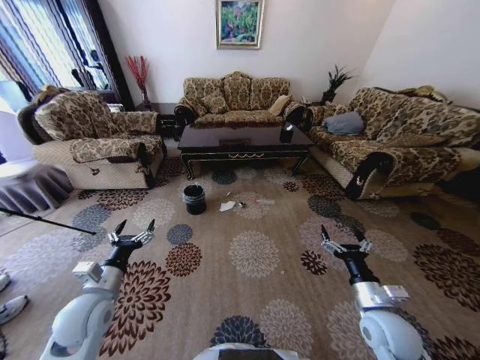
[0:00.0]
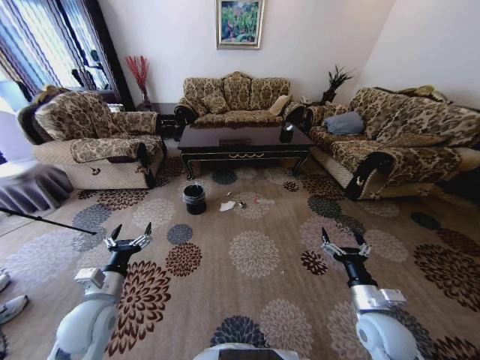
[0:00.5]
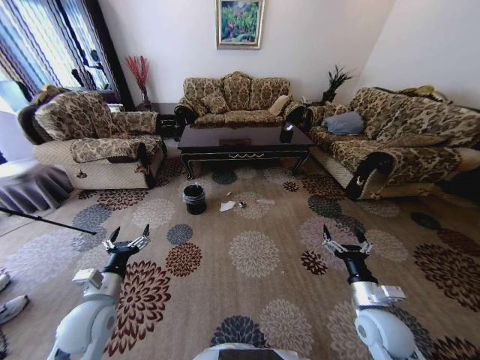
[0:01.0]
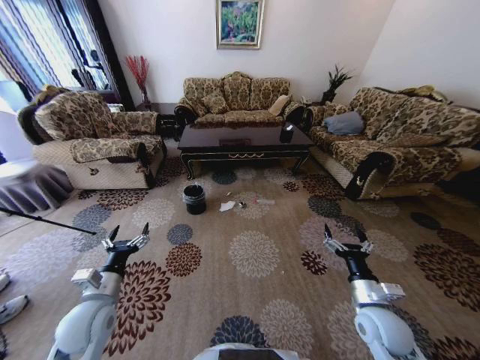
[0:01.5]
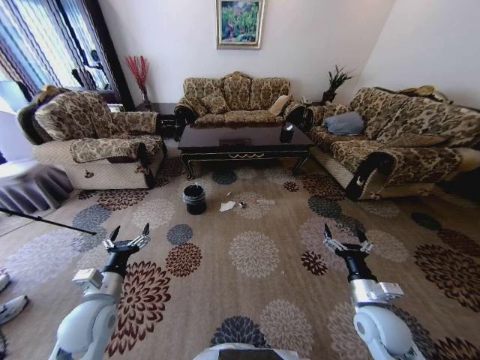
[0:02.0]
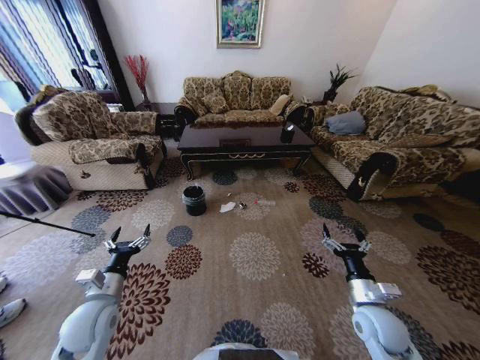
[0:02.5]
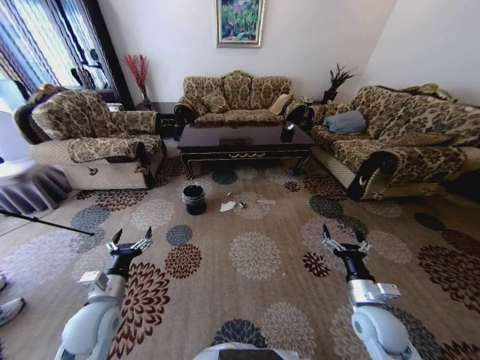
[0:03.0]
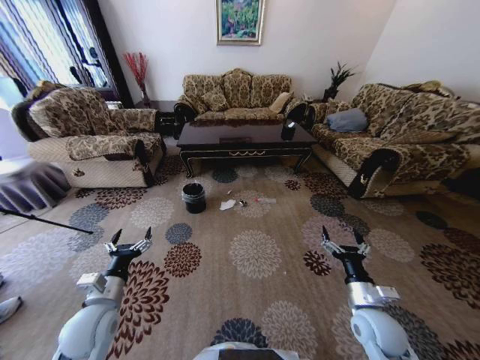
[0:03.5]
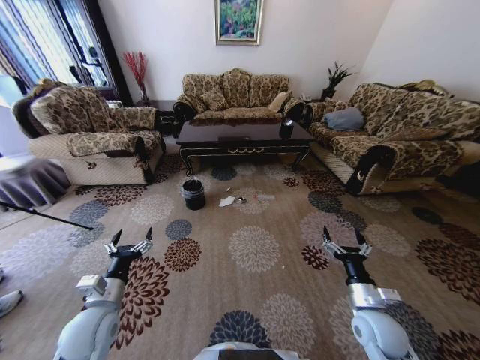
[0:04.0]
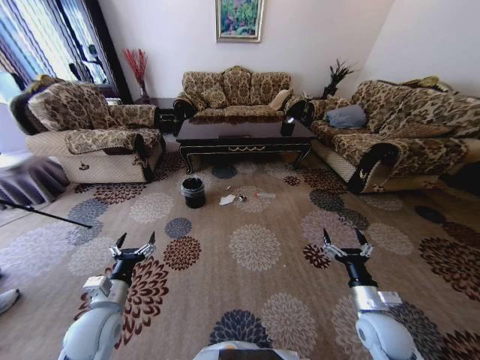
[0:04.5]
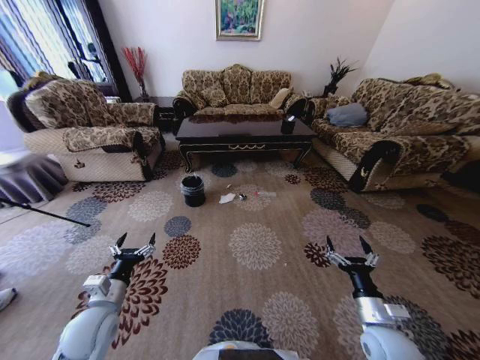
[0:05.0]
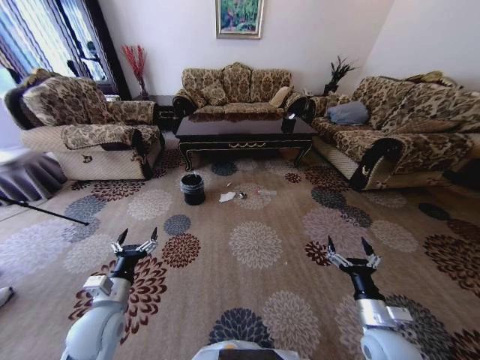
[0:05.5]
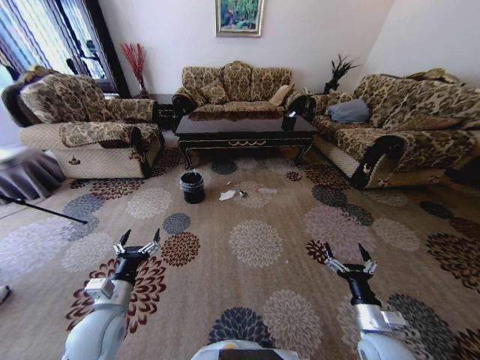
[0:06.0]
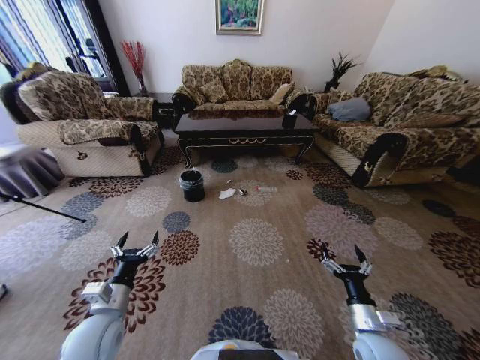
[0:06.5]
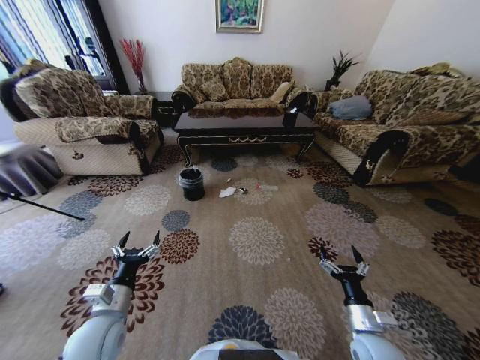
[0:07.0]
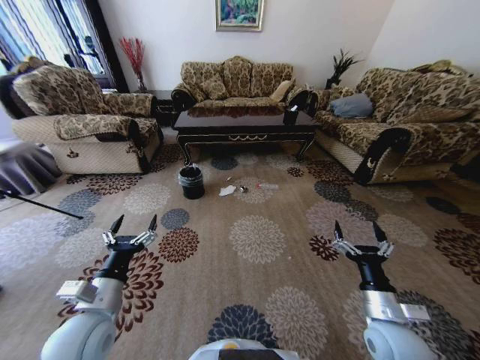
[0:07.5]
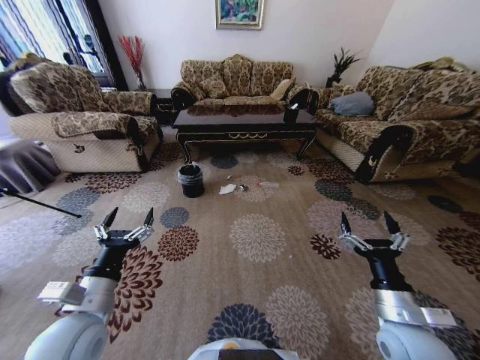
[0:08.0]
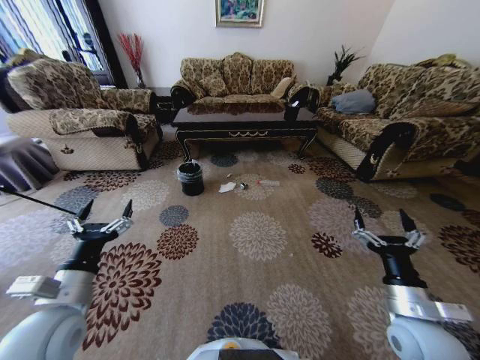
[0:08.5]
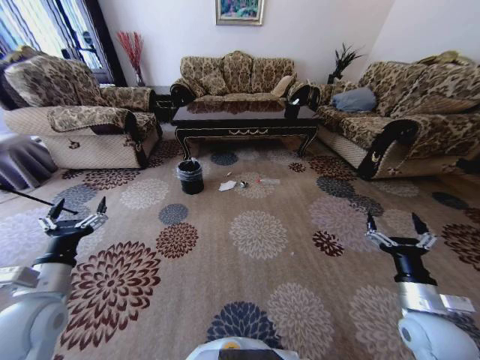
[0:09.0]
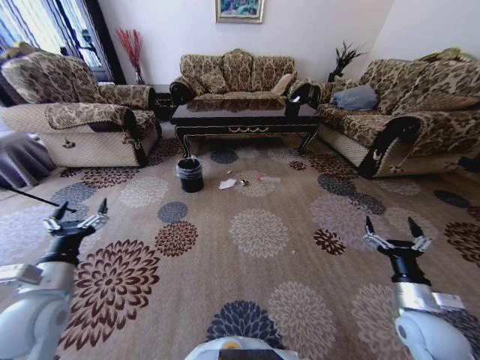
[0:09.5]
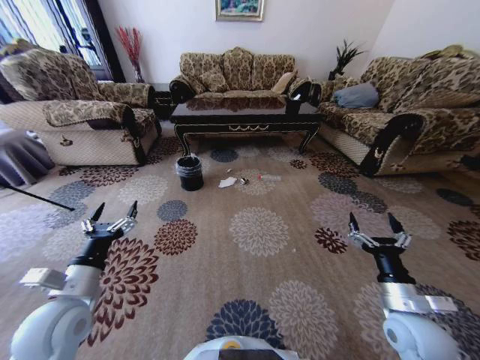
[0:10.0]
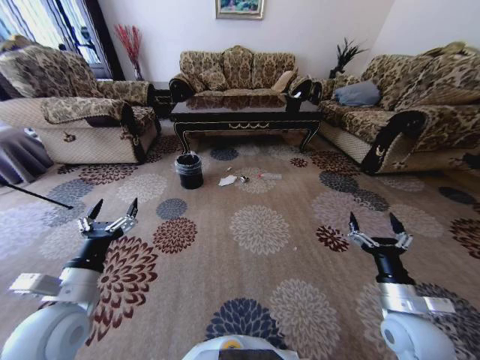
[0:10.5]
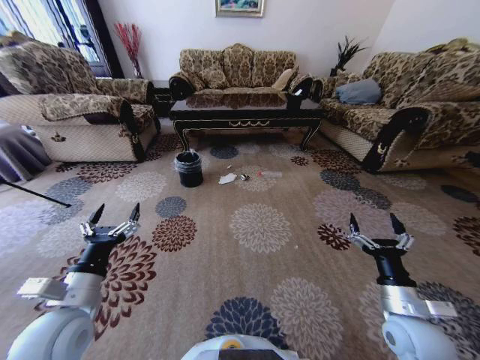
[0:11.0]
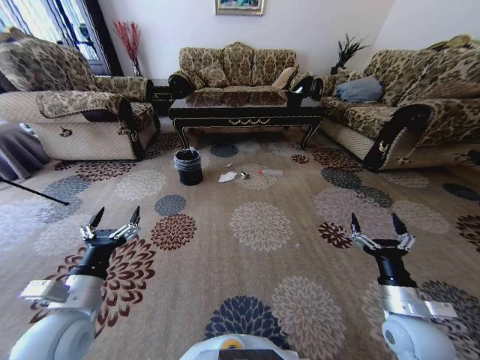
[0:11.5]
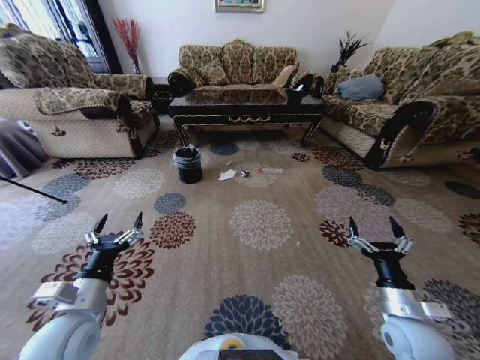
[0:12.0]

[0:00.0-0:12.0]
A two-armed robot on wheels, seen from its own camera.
Task of the whole recording: Move to the front of the table and pick up the trash from the floor, then place it into the trash bin.
0:04.0 to 0:06.0: The right gripper shifts by approximately 5 cm.
0:06.0 to 0:08.0: Both grippers travel together upward, about 10 cm.

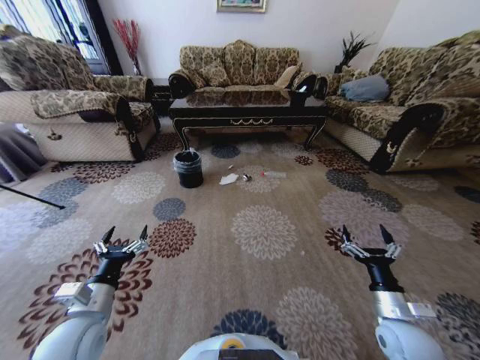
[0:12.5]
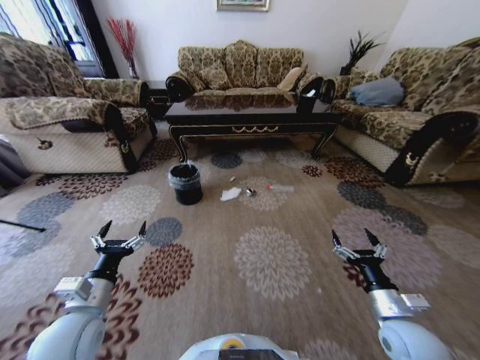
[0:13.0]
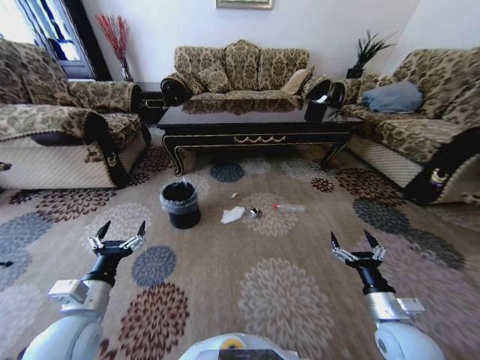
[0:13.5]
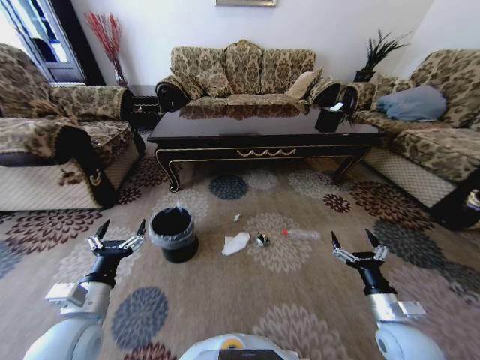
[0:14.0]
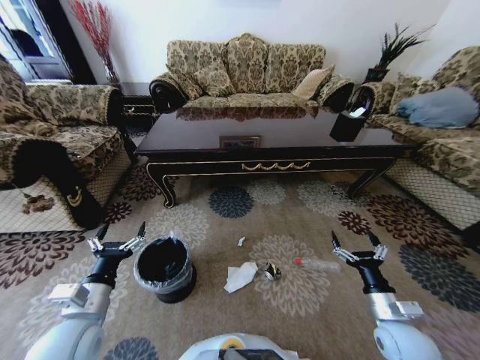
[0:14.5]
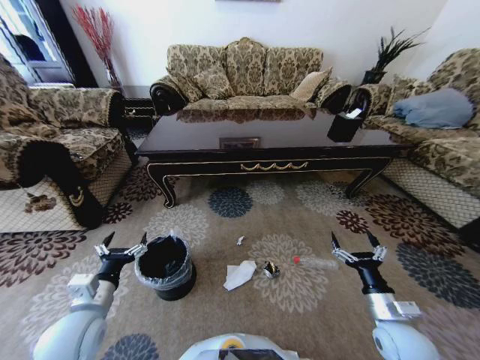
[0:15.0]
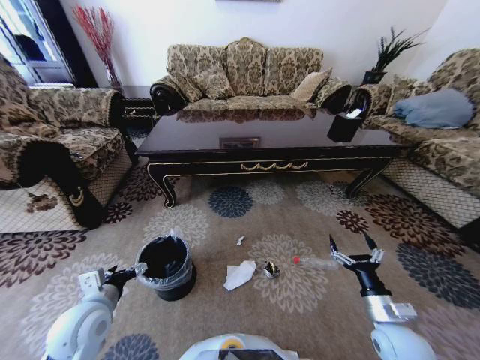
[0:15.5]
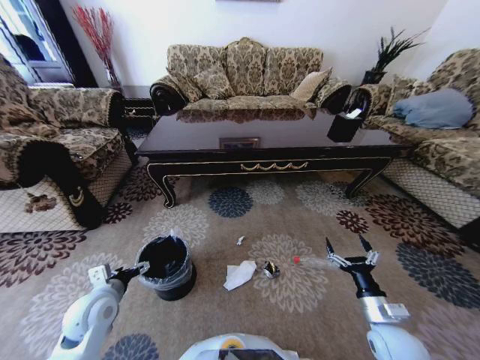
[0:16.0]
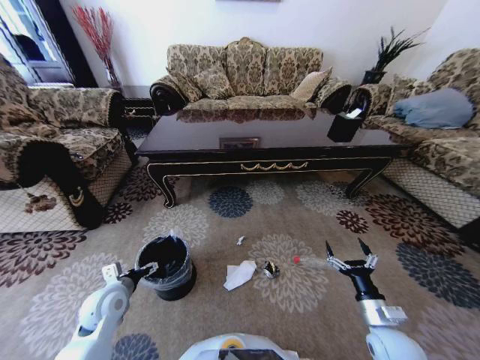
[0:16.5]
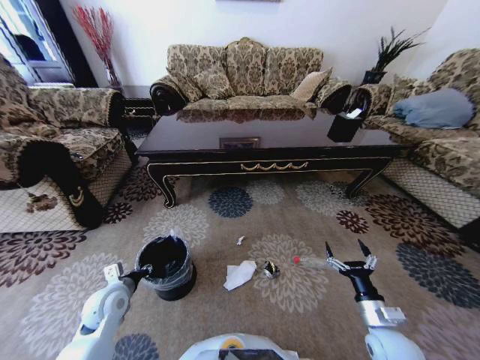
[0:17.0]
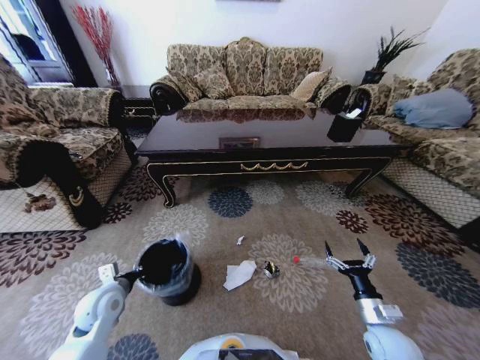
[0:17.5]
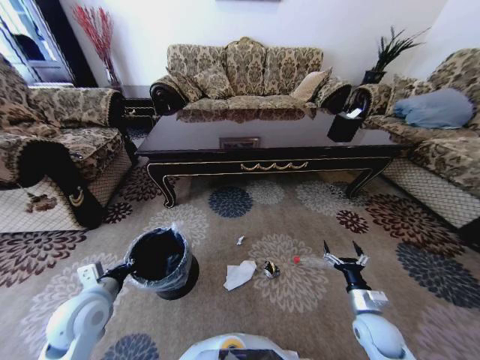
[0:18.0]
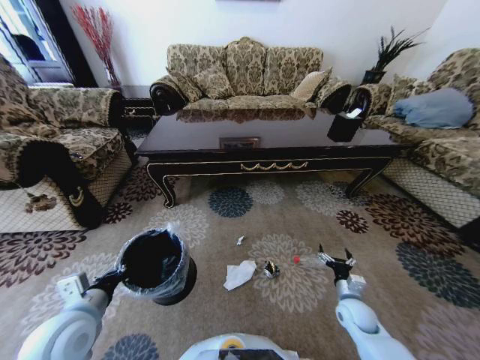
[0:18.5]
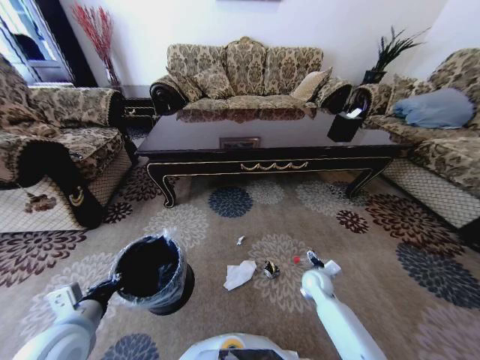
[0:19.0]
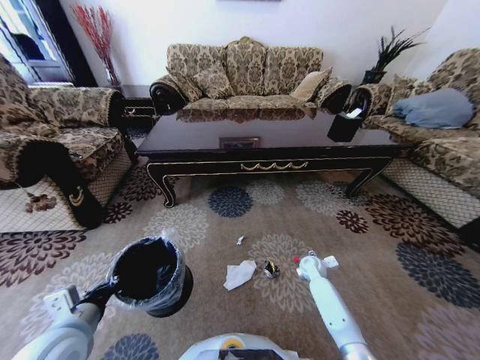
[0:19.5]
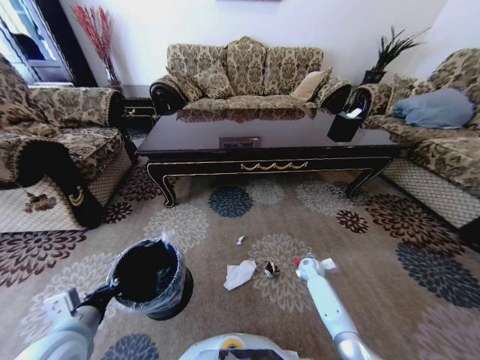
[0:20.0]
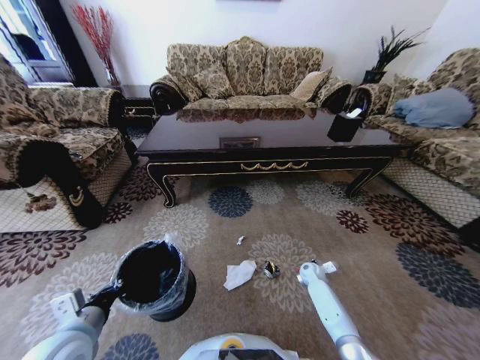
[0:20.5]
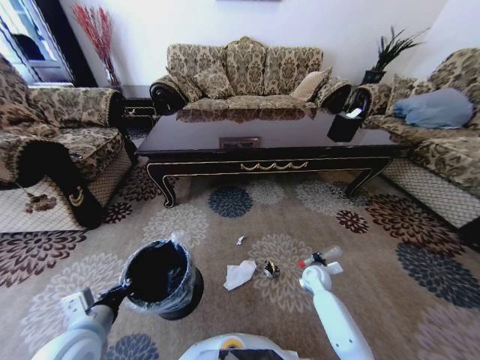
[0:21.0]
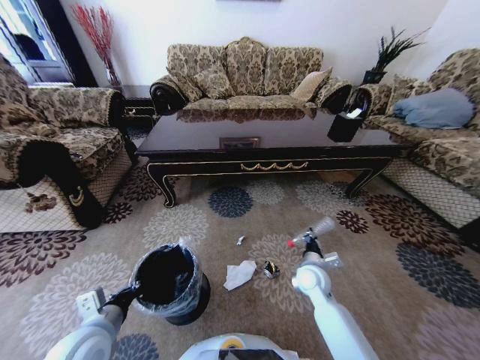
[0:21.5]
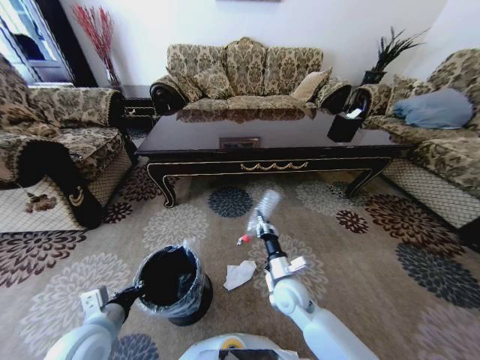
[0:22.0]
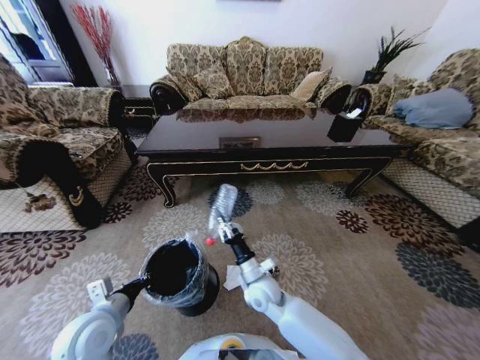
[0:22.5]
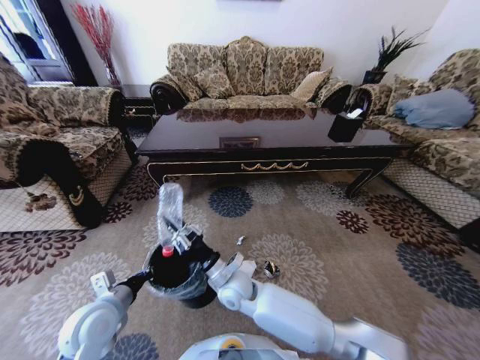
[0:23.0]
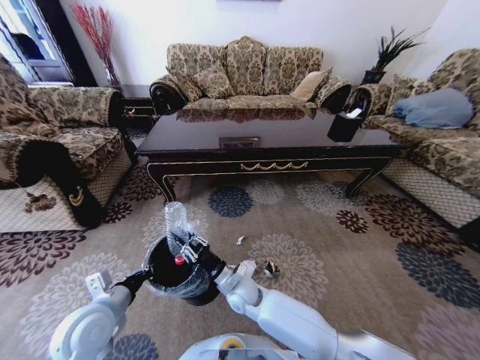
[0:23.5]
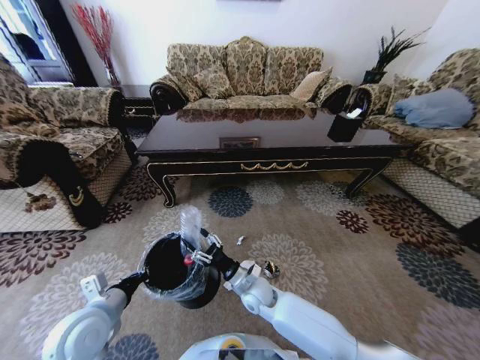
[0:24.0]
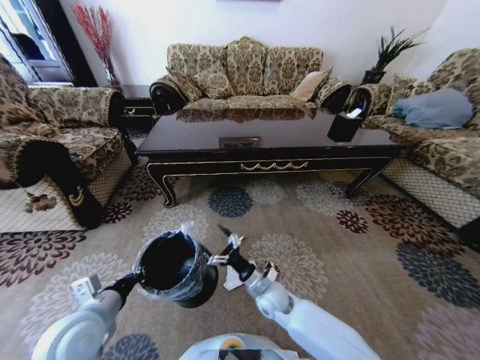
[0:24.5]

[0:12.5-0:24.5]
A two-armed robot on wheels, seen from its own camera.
Task of the whole recording: Move to the front of the table and pick up the trash from the floor, then place it into the trash bin.
0:14.5 to 0:16.5: The left gripper shifts about 15 cm downward and forward.
0:16.5 to 0:18.5: The right gripper moves forward and downward, approximately 10 cm, while the left gripper shifts approximately 15 cm upward and backward, and closes.
0:18.5 to 0:20.5: The right gripper travels forward and downward by approximately 15 cm, and closes its fingers.
0:20.5 to 0:22.5: The left gripper moves some 5 cm; the right gripper goes about 30 cm to the left, upward and backward, and closes.
0:22.5 to 0:24.5: The right gripper travels to the left and back again, roughly 10 cm each way, and opens its fingers.

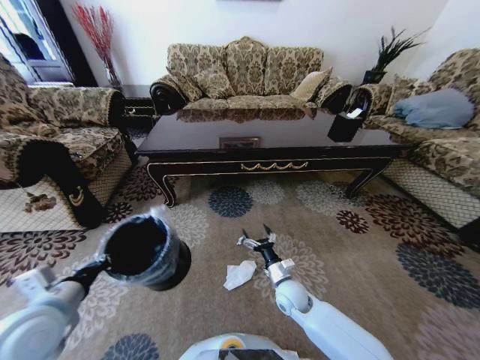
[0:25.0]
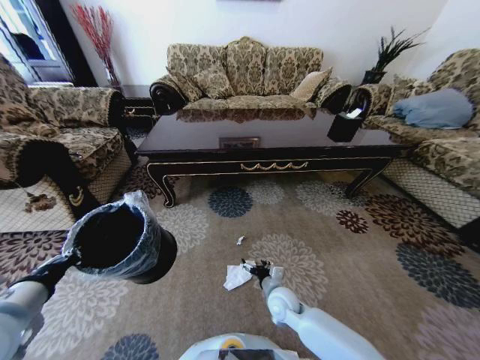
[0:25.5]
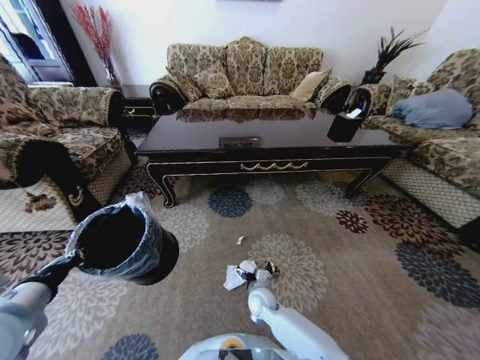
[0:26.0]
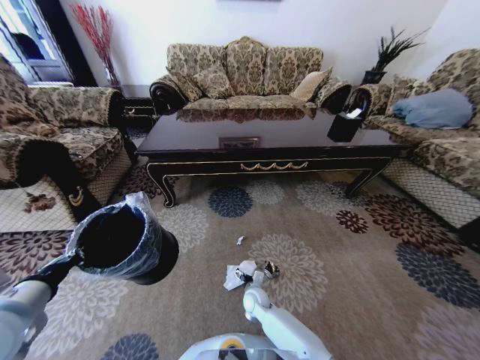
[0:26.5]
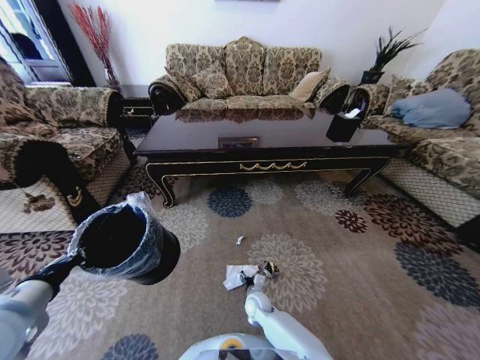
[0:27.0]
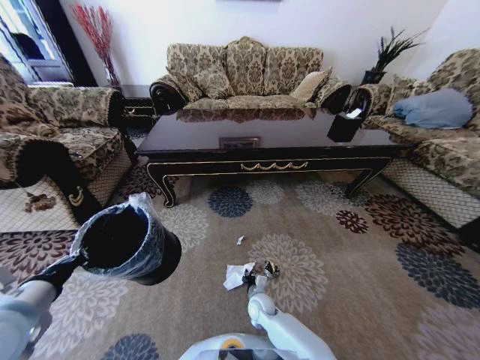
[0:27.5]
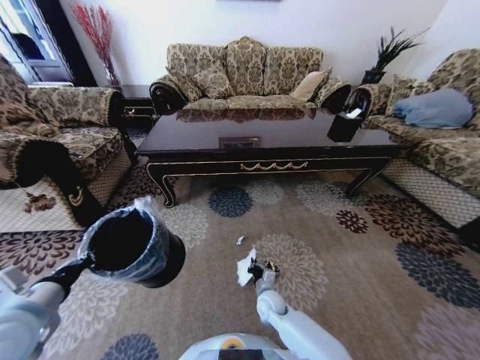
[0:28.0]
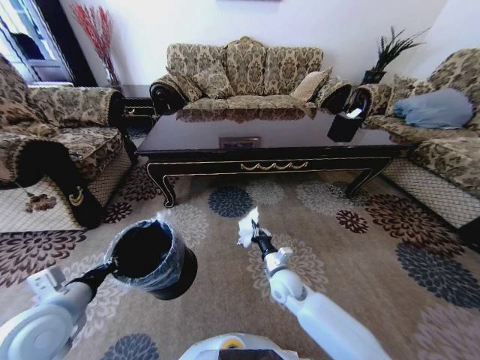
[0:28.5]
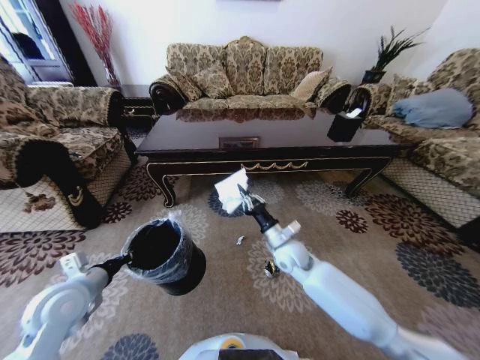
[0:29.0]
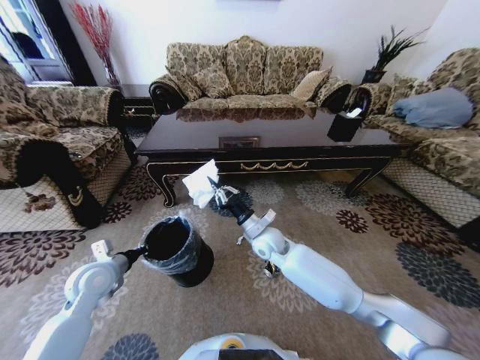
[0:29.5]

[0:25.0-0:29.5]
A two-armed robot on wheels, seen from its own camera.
Task of the whole recording: Move to the front of the table and pick up the trash from the floor, then place it into the trash bin.
0:25.0 to 0:27.0: The right gripper travels downward and to the left by about 15 cm.
0:27.0 to 0:29.5: The left gripper moves forward and downward, about 15 cm. The right gripper goes some 30 cm upward and forward, and closes its fingers.
